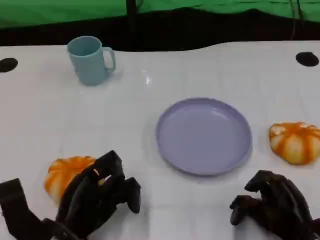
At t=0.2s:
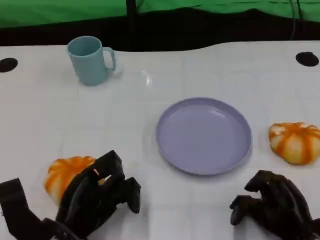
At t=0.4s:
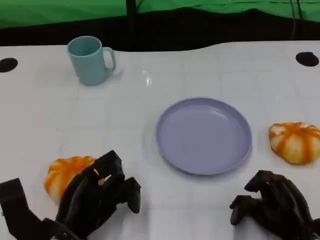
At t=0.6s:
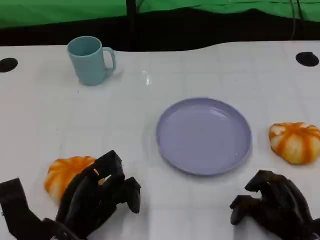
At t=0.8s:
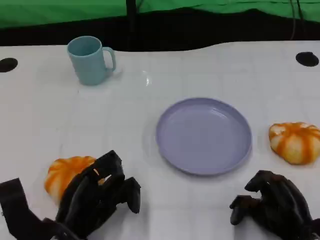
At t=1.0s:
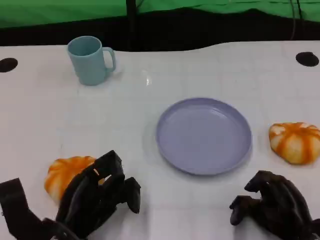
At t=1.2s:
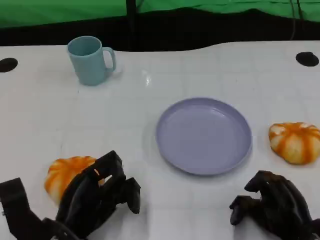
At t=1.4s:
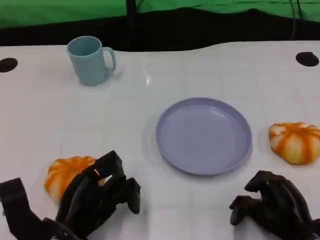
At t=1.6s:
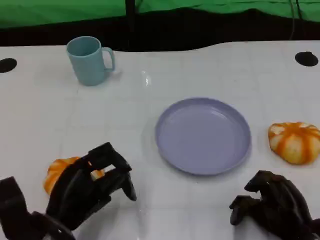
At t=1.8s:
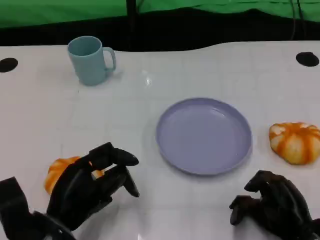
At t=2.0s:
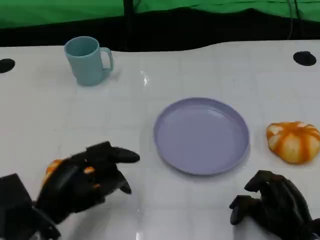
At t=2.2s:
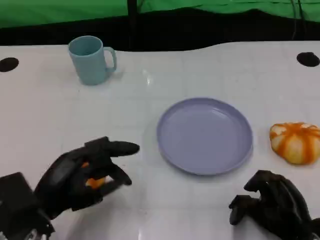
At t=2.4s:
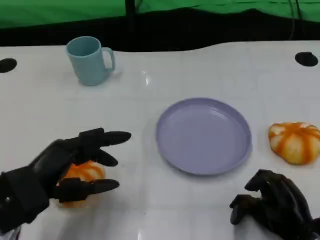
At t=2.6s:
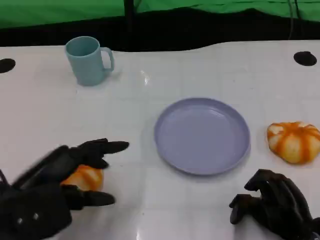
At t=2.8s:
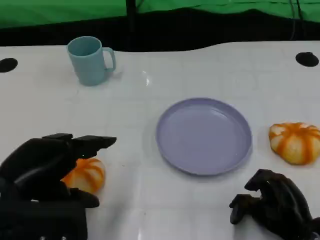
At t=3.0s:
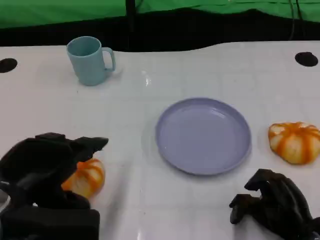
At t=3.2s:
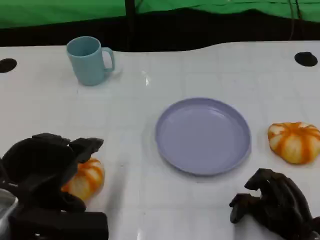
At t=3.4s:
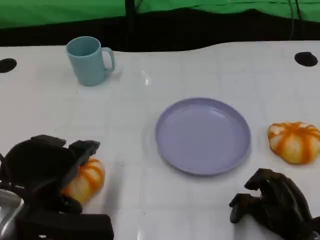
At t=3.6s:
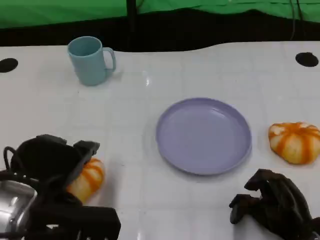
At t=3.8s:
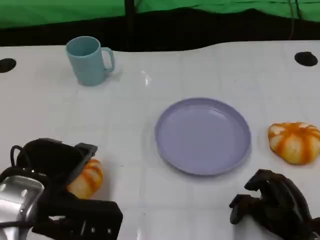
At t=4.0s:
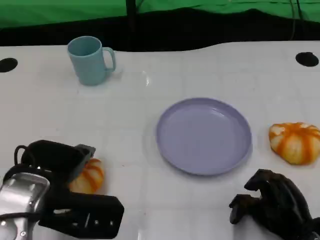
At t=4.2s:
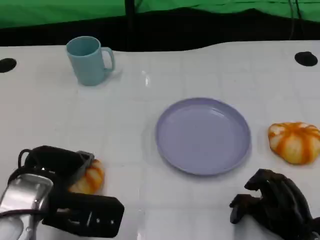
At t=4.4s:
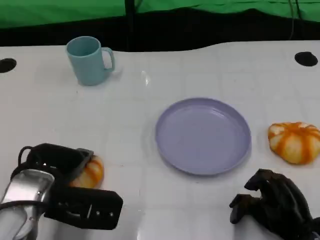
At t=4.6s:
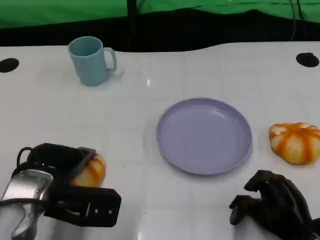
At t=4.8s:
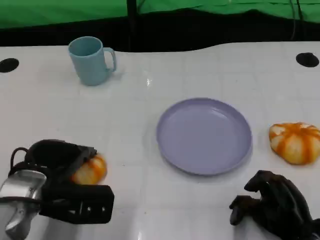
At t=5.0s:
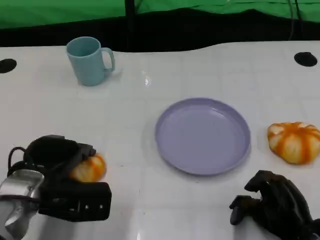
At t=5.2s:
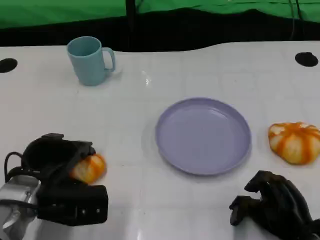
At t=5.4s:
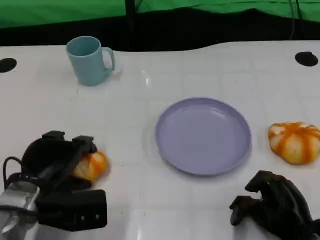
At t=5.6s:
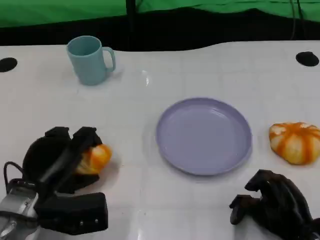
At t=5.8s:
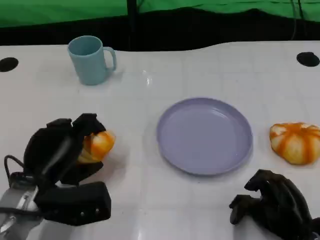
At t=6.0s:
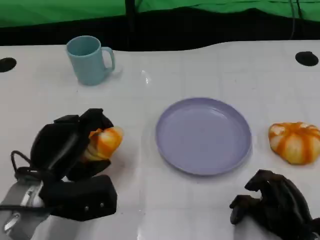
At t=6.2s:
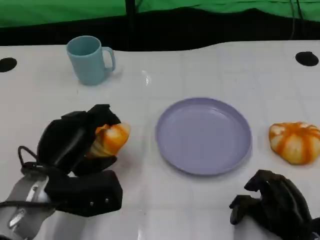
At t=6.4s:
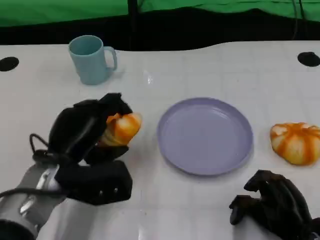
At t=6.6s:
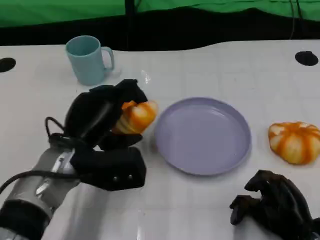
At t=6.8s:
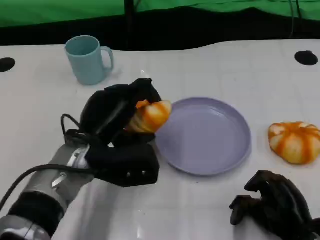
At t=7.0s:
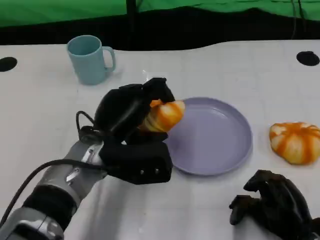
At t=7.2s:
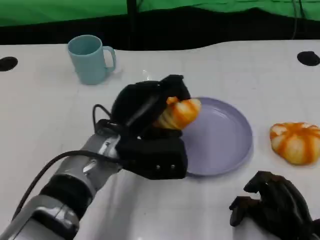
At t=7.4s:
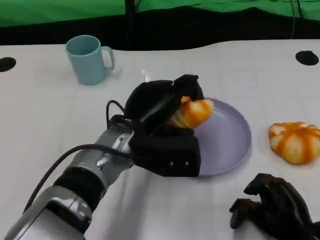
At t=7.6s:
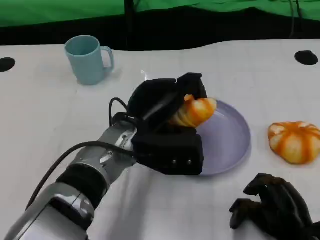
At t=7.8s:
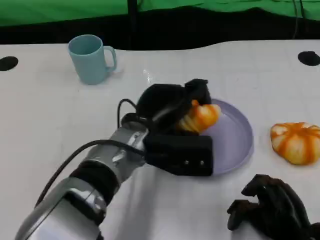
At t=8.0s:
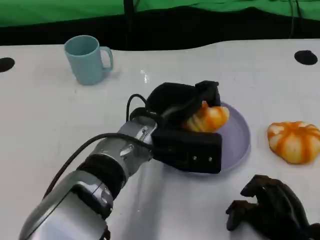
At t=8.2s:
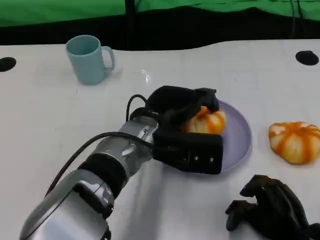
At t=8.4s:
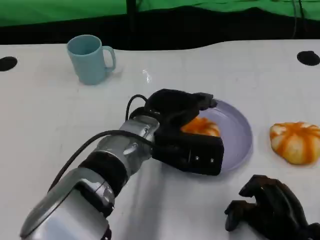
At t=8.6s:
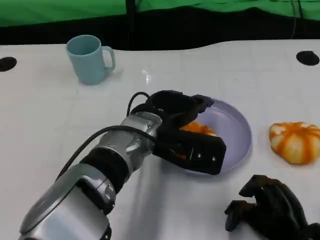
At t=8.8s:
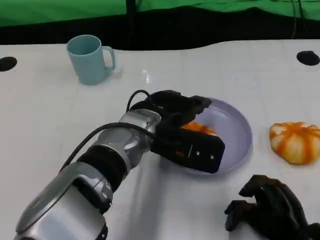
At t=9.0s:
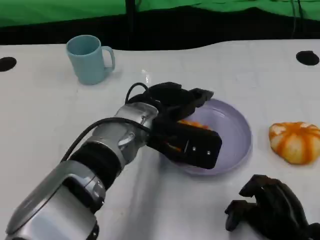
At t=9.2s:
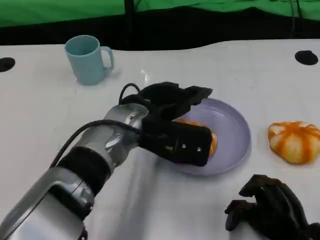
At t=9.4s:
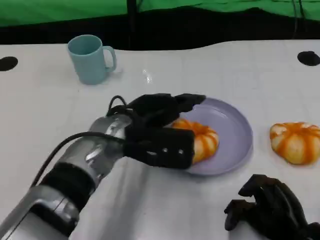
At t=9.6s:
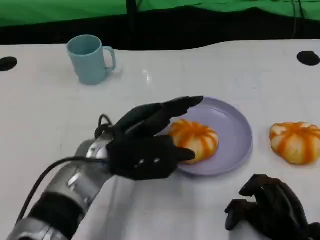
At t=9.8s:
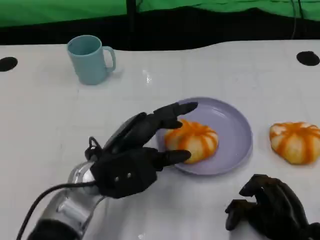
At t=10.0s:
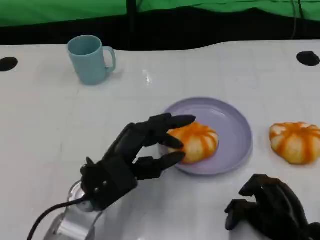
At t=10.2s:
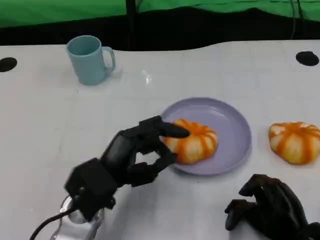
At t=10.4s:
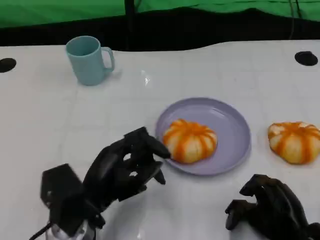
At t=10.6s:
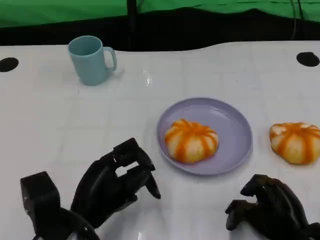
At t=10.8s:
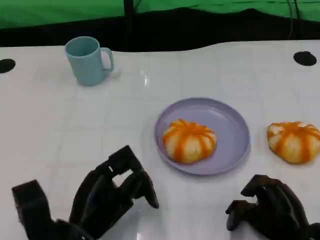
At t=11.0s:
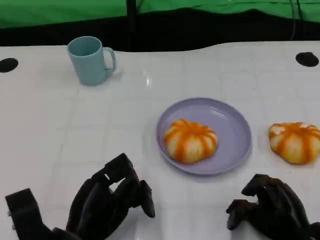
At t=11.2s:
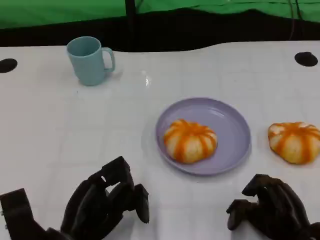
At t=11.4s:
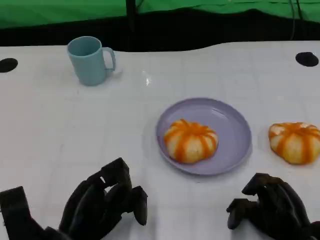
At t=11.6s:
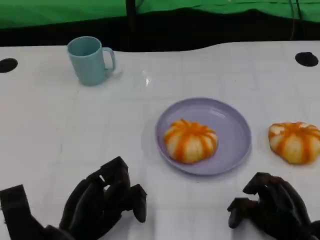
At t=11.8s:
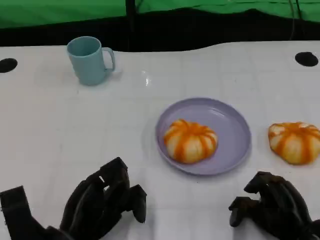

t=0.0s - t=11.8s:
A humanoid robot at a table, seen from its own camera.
Task of the whole recording: Grasp the bread from the table and place it into the plate.
t=0.0s - t=1.4s: Neither hand changes place.
t=1.4s - t=3.0s: The left hand heads upward, covering roughly 15 cm.
t=3.0s - t=4.4s: The left hand heads downward and forward, covering some 10 cm.
t=6.0s - t=7.4s: The left hand heads to the right and forward, covering roughly 15 cm.
t=8.8s - t=10.4s: The left hand heads to the left, backward and downward, covering roughly 15 cm.
t=10.4s - t=11.8s: The left hand ends up approximately 5 cm from where it was.

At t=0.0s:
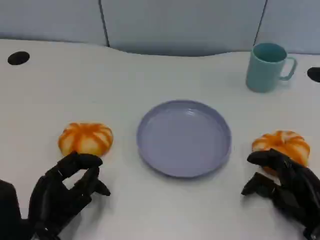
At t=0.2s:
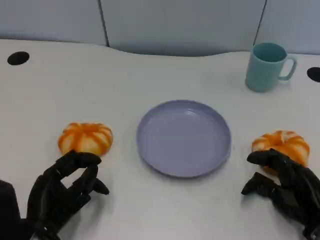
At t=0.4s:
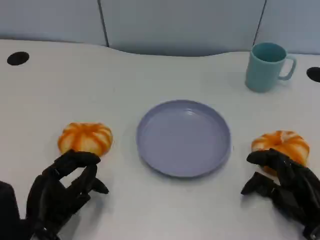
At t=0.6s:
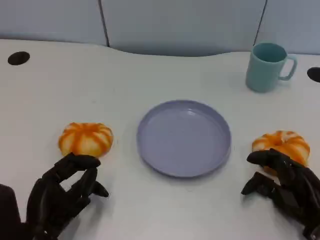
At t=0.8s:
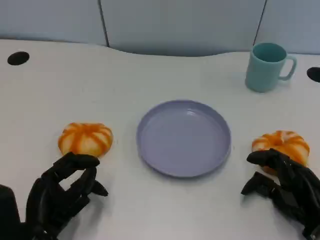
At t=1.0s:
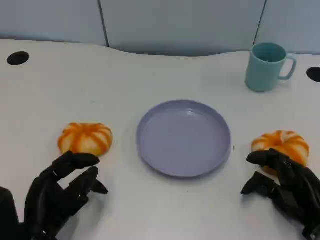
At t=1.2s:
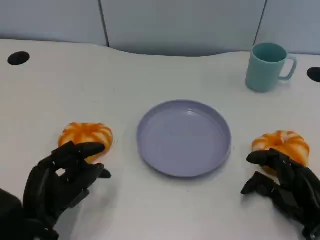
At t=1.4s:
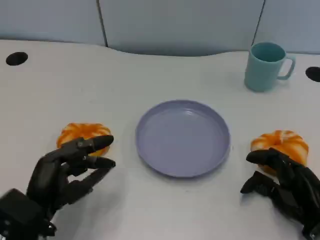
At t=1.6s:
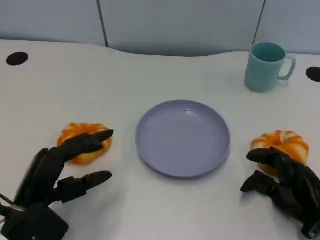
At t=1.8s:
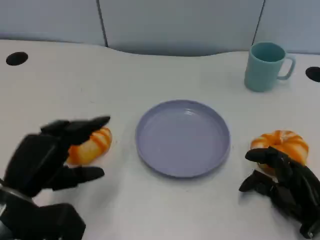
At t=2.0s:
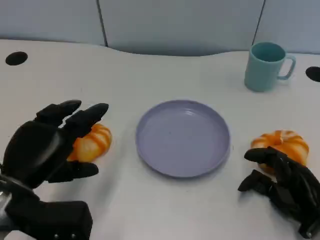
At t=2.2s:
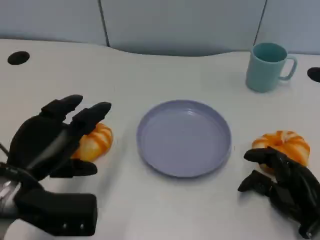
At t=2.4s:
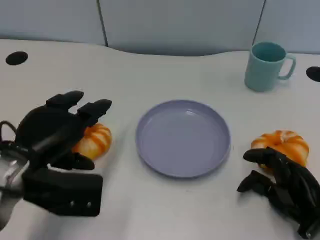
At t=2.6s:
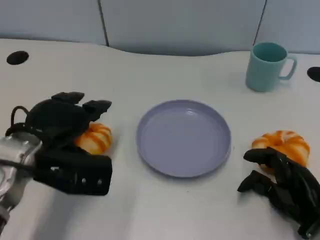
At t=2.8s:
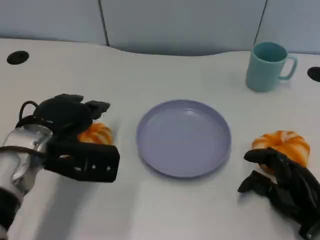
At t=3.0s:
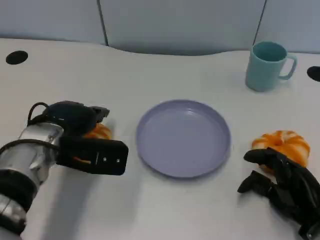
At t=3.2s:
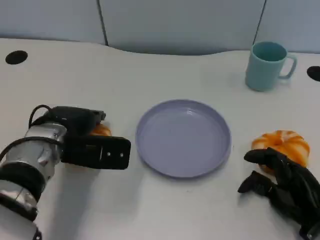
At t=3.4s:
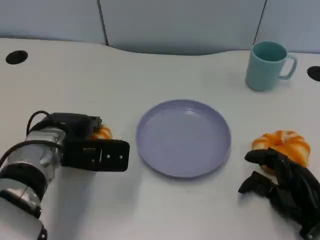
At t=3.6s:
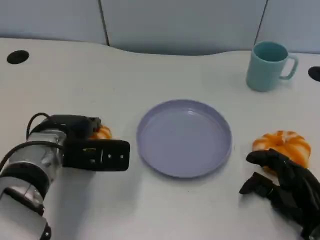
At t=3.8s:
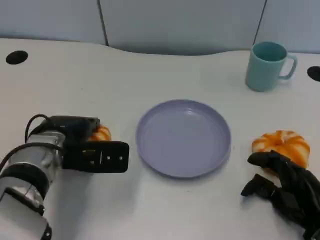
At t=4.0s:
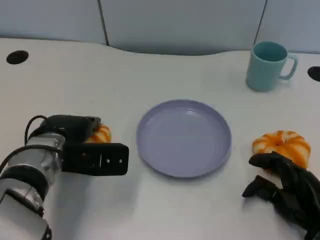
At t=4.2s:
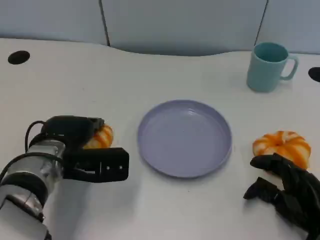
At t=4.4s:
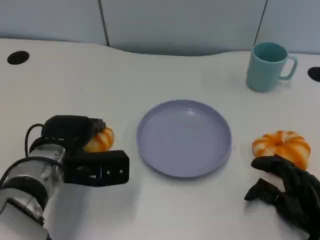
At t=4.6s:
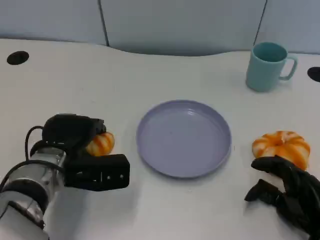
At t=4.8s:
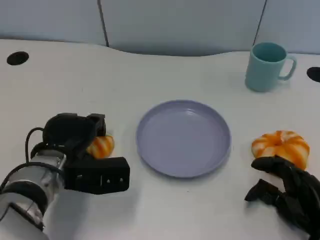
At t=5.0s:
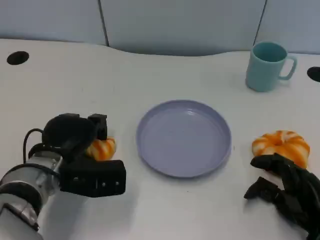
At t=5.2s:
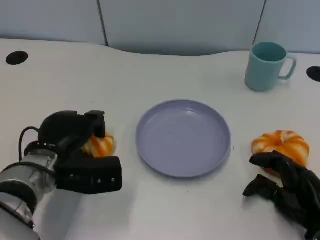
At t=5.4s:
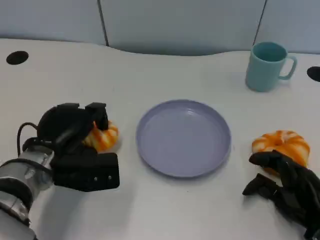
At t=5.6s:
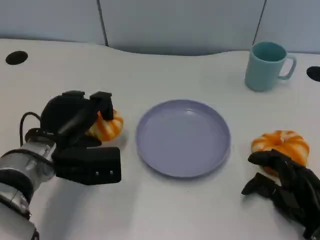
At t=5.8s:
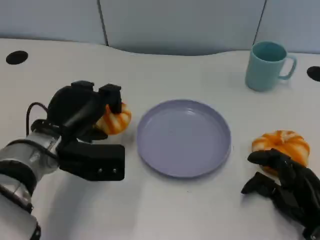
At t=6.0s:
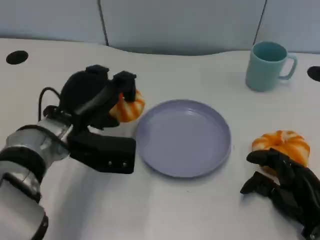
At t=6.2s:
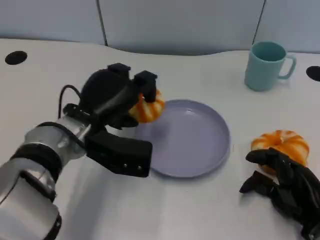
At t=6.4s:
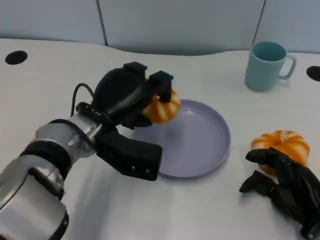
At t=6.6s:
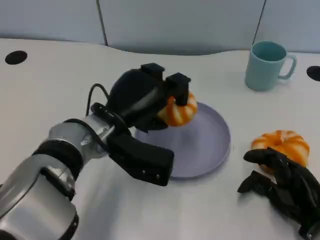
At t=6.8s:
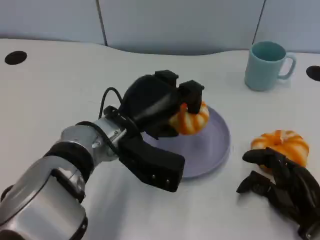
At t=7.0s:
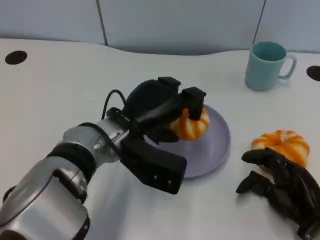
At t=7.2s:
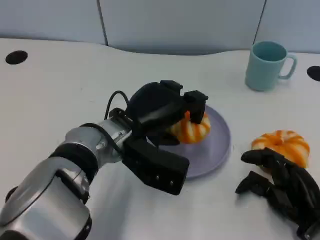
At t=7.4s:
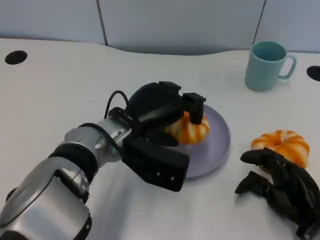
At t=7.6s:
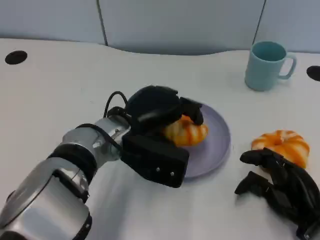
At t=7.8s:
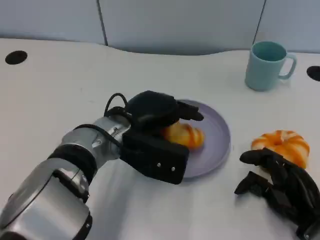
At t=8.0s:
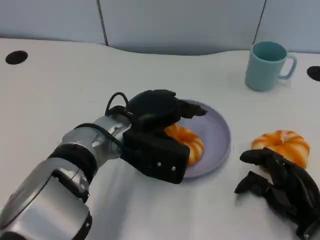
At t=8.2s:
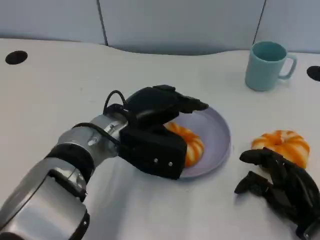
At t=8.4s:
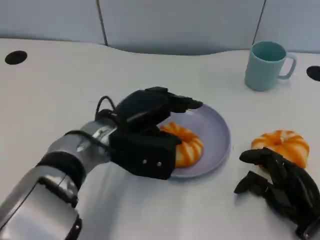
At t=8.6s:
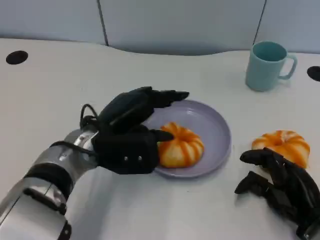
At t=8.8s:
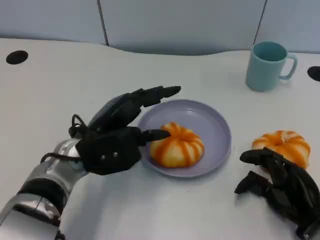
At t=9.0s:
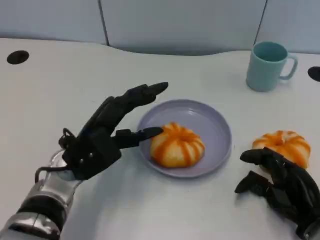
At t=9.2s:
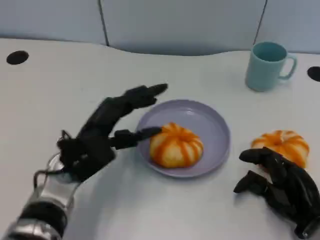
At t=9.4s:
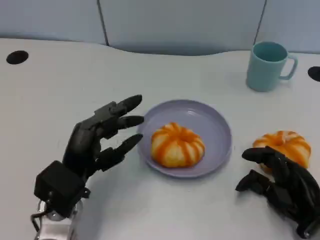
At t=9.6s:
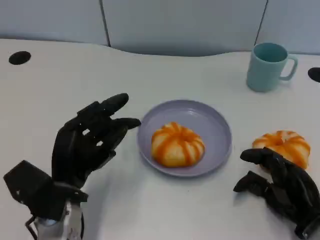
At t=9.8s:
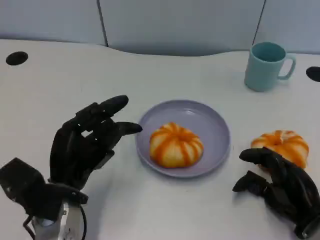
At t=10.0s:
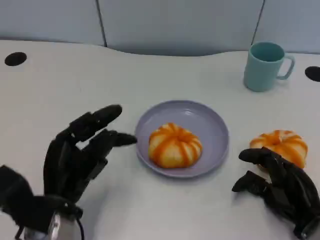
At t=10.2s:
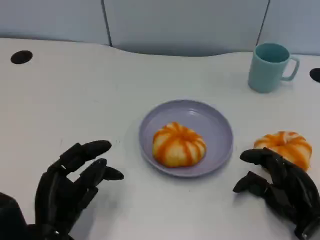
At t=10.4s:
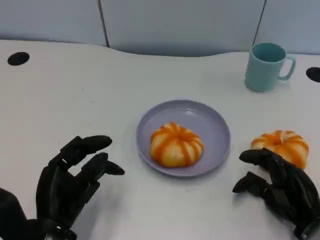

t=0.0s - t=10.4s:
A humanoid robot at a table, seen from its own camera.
Task of the whole recording: Grasp the bread from the table and place it into the plate.
t=1.4s - t=3.0s: The left hand goes about 15 cm forward and upward.
t=3.0s - t=4.4s: The hands make only small movements.
t=4.4s - t=6.0s: The left hand moves roughly 5 cm.
t=6.0s - t=7.4s: The left hand moves to the right, approximately 5 cm.
t=7.4s - t=9.0s: The left hand shifts roughly 5 cm to the left.
t=9.0s - t=10.4s: The left hand travels backward by about 10 cm.
